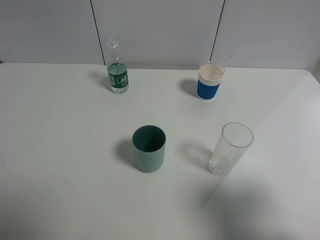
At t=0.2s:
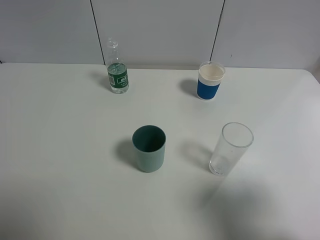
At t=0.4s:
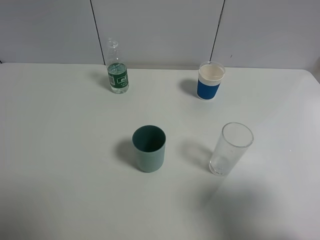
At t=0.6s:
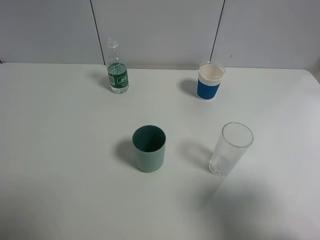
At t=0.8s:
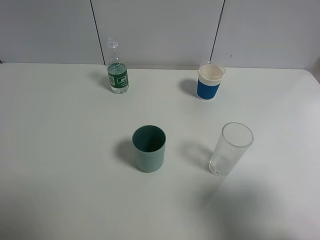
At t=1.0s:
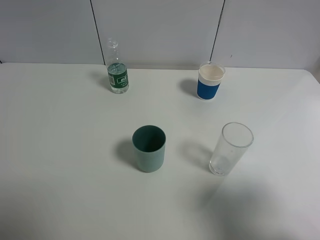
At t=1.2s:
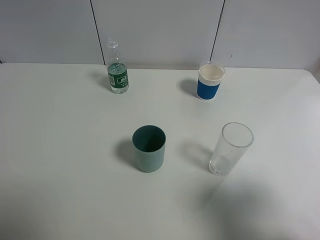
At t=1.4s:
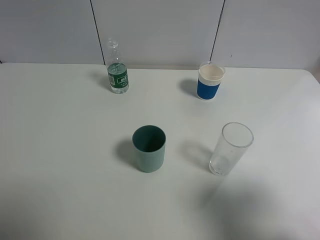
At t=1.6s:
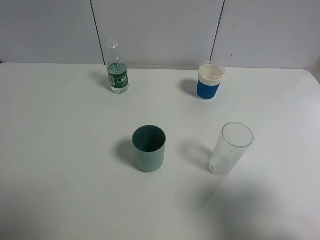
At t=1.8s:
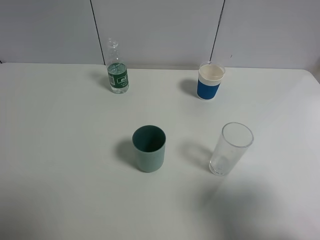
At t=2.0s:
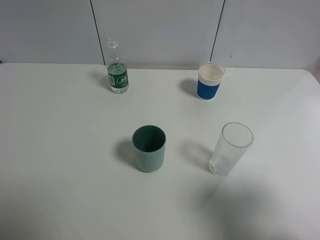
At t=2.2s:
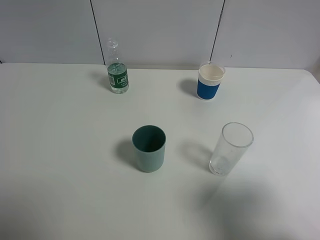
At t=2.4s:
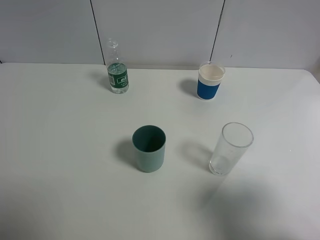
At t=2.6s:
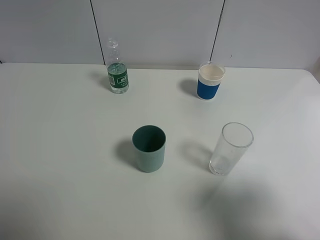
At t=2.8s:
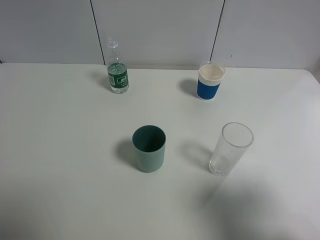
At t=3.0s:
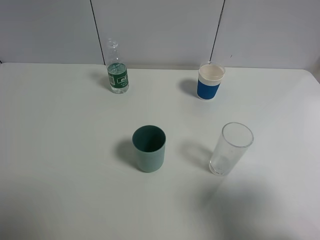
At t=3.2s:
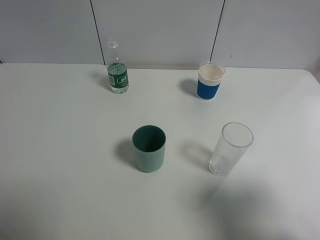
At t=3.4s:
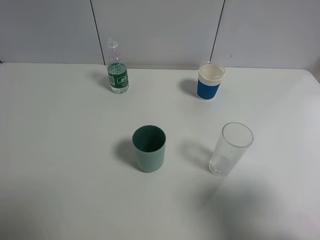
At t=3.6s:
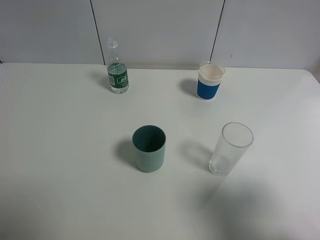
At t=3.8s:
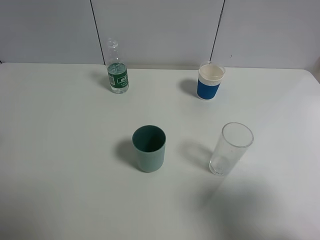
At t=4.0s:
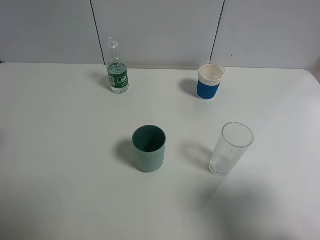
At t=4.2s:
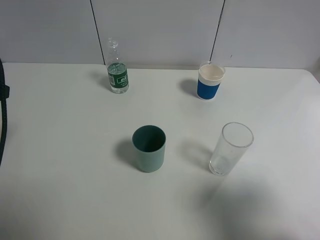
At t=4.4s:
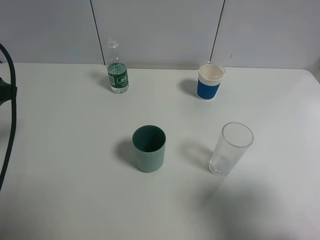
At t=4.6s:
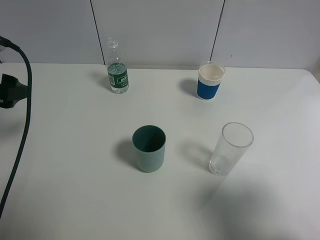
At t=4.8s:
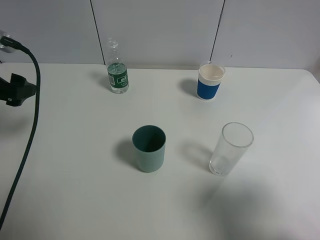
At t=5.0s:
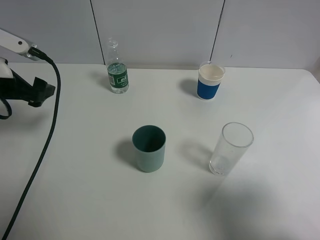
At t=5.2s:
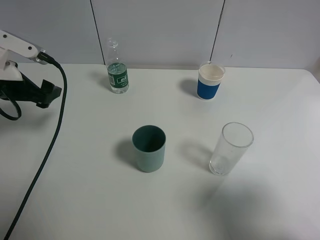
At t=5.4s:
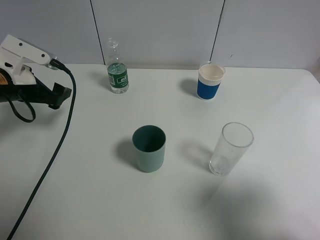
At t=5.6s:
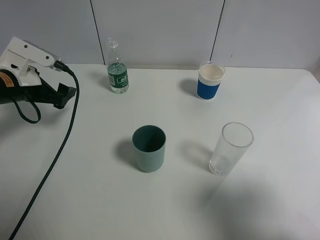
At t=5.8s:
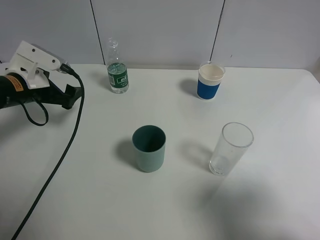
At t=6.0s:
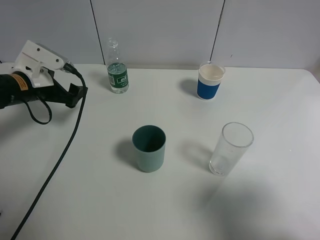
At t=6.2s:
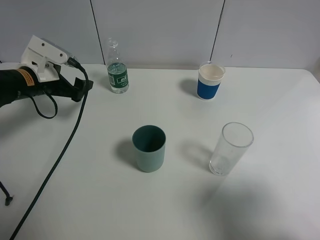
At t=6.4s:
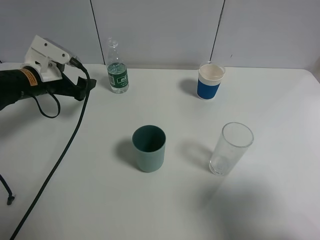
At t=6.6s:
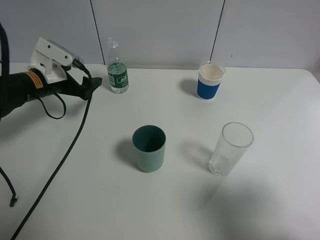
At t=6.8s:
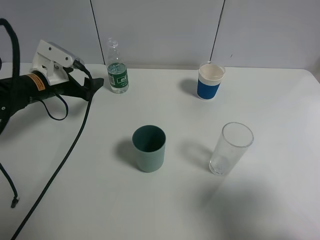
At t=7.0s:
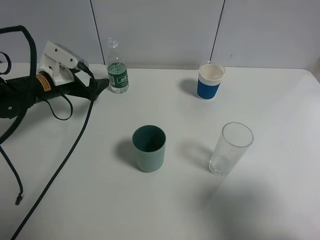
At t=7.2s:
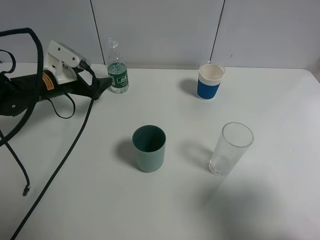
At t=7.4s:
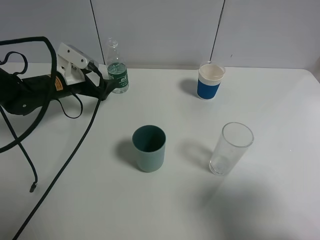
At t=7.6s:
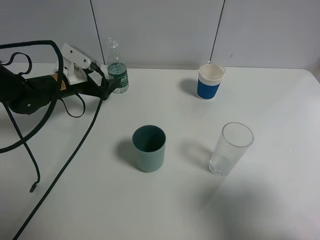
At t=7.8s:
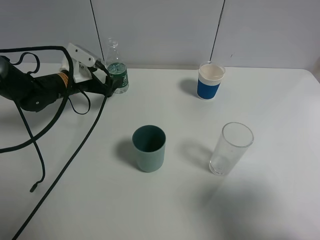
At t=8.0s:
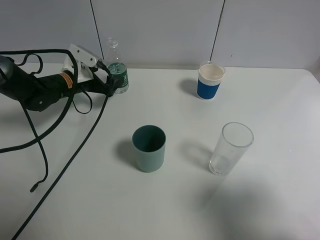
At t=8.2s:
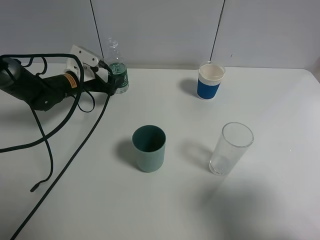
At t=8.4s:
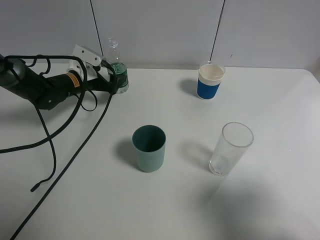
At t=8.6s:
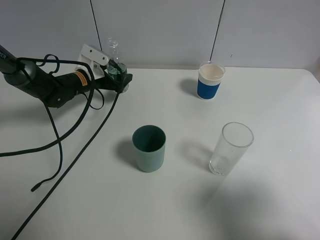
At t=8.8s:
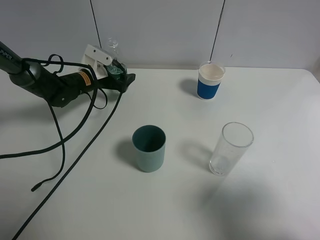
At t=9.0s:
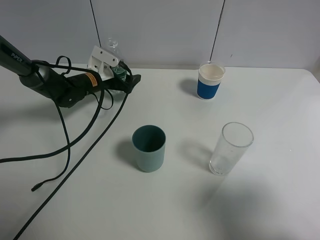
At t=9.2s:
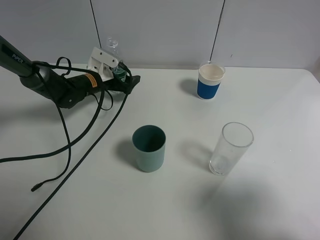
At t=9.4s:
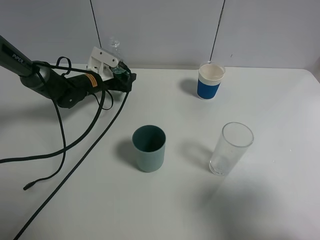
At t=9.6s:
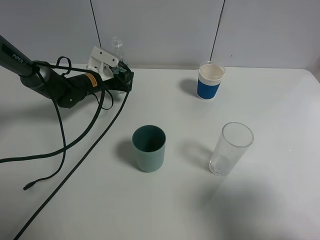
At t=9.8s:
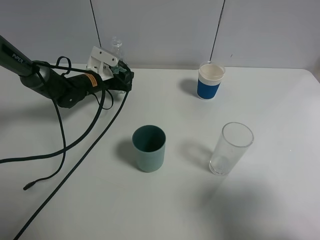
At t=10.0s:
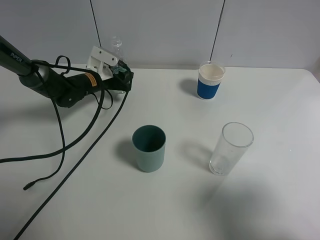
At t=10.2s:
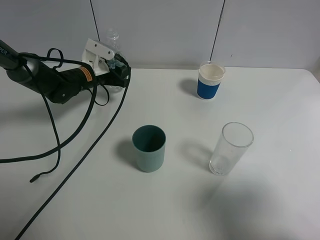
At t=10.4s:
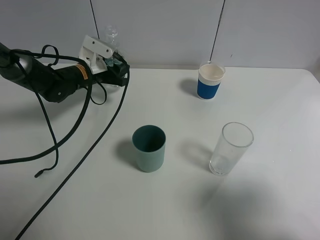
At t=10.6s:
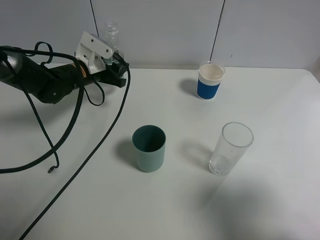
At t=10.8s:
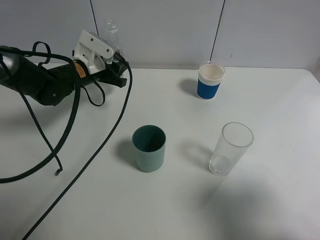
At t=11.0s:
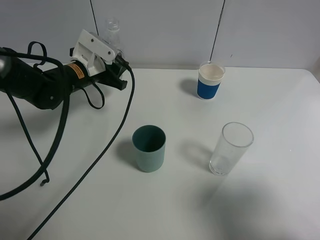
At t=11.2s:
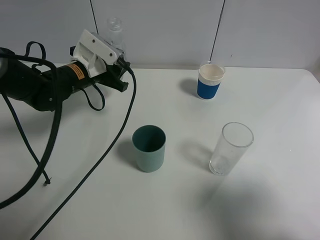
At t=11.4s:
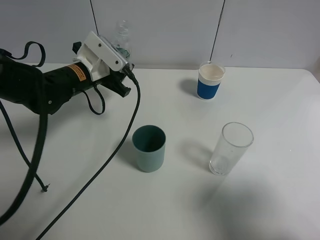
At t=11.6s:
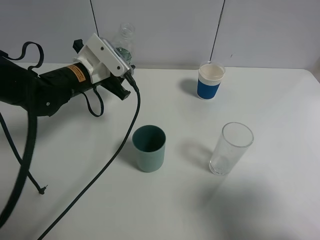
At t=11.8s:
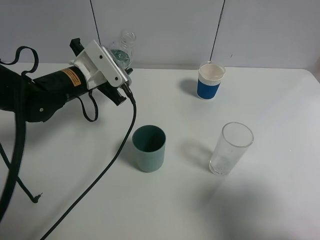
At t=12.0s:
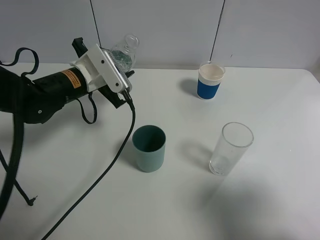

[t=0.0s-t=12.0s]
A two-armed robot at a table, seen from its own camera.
Task of the whole recording: use a gripper to hold the bottle of the drink and pour it into a random cup.
Step, t=0.0s to t=9.6s: Grasp the mineral water bottle with the left gripper.
t=0.0s to t=1.6s: Both grippers stay put.
t=3.0s to t=4.4s: The left gripper heads forward, covering approximately 15 cm, and opens.
t=4.4s to t=6.0s: The left gripper shifts some 15 cm forward and downward.
t=6.0s to t=7.6s: The left gripper travels forward by roughly 5 cm.
t=7.6s to t=9.0s: The left gripper is displaced forward by approximately 5 cm.
t=9.0s to t=10.4s: The left gripper closes its fingers.
t=10.4s to t=12.0s: The left gripper moves backward and upward, about 10 cm.

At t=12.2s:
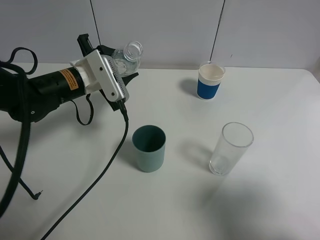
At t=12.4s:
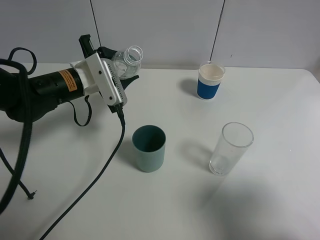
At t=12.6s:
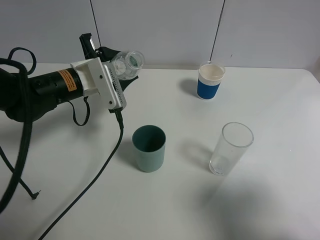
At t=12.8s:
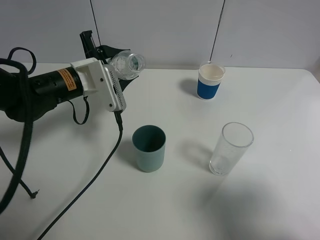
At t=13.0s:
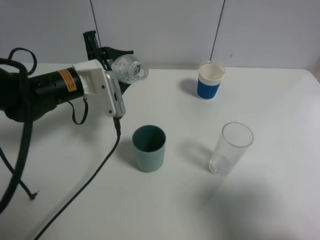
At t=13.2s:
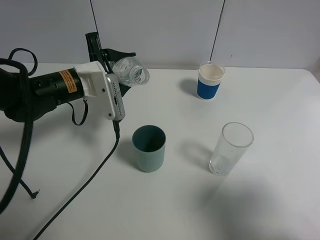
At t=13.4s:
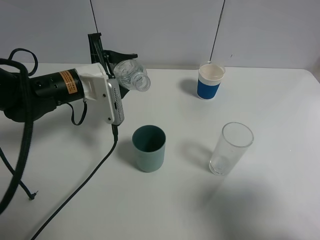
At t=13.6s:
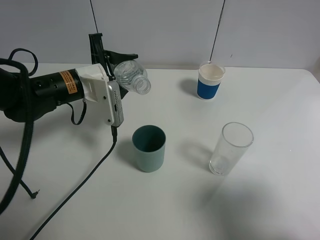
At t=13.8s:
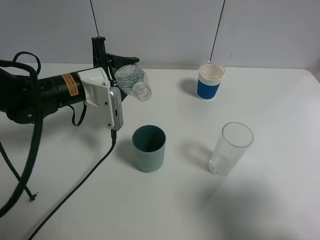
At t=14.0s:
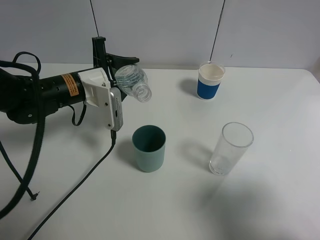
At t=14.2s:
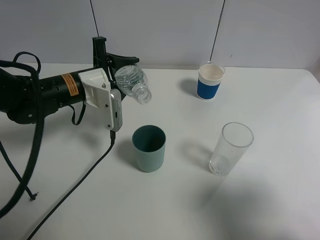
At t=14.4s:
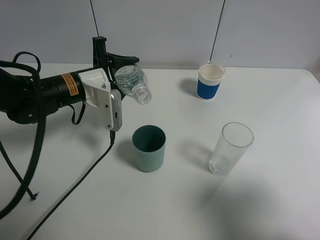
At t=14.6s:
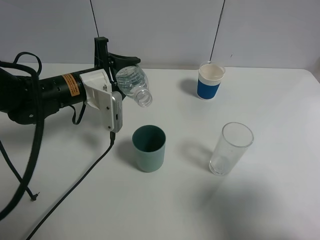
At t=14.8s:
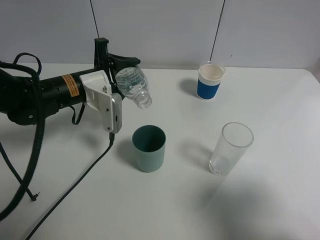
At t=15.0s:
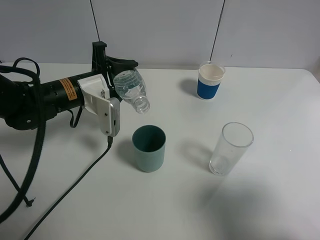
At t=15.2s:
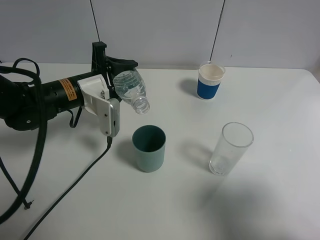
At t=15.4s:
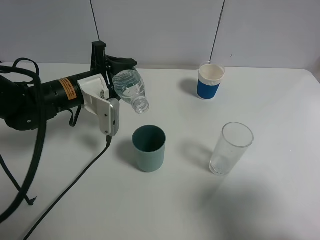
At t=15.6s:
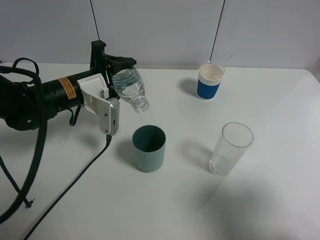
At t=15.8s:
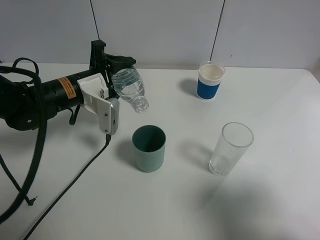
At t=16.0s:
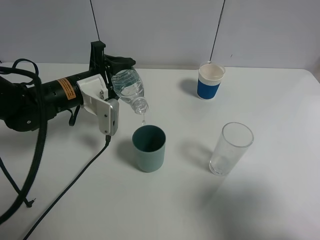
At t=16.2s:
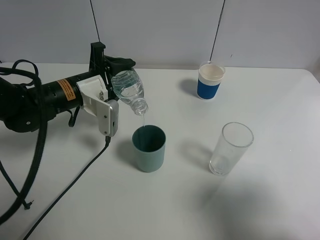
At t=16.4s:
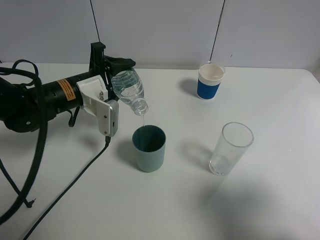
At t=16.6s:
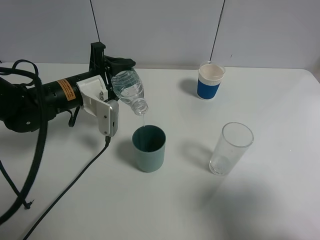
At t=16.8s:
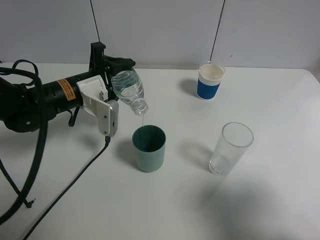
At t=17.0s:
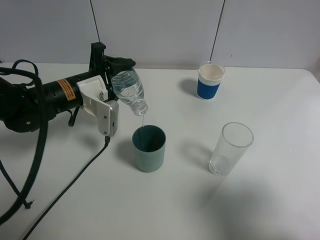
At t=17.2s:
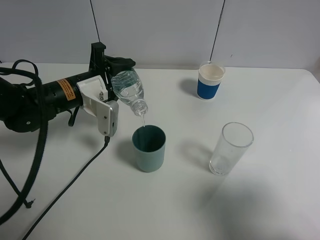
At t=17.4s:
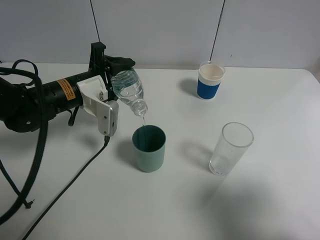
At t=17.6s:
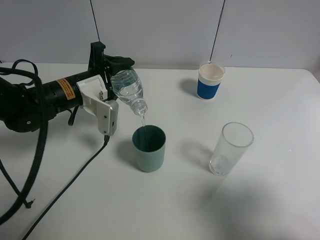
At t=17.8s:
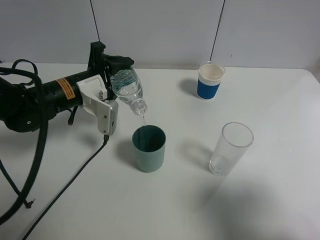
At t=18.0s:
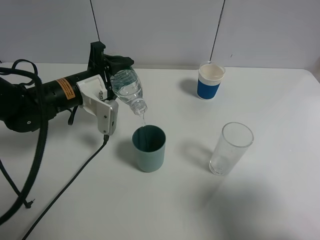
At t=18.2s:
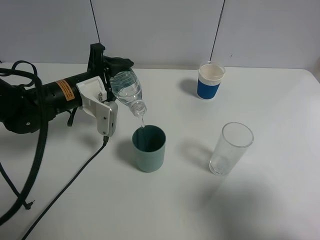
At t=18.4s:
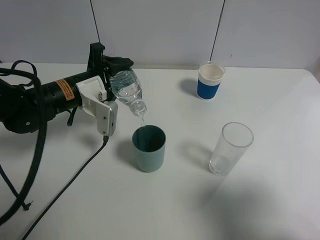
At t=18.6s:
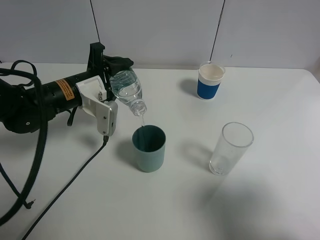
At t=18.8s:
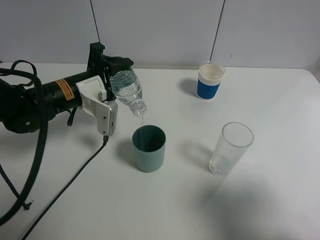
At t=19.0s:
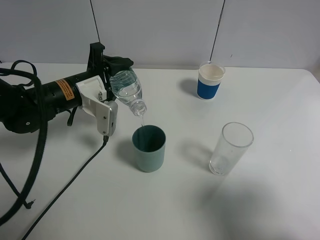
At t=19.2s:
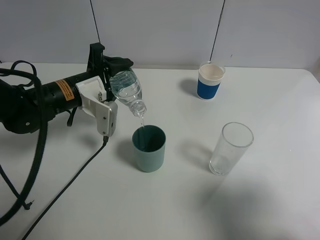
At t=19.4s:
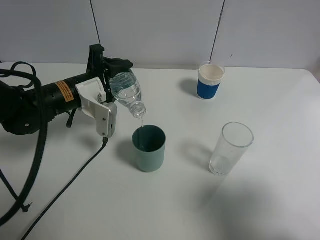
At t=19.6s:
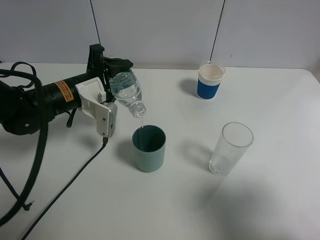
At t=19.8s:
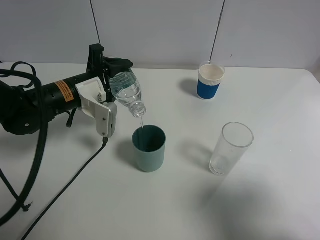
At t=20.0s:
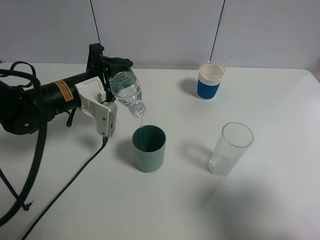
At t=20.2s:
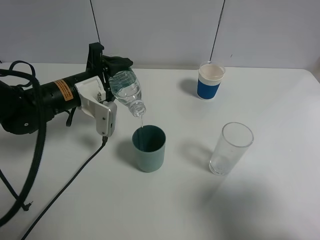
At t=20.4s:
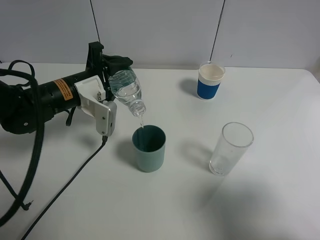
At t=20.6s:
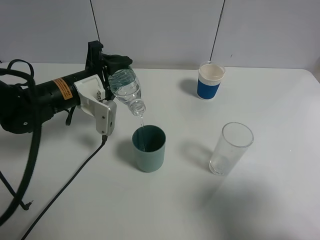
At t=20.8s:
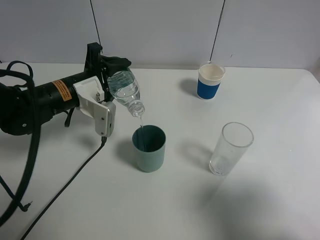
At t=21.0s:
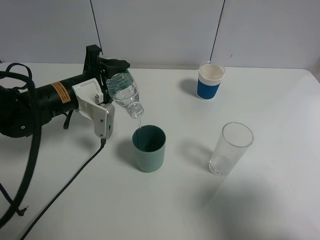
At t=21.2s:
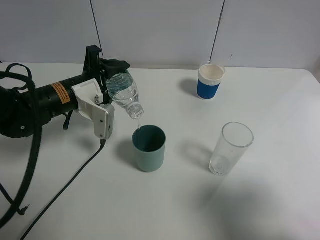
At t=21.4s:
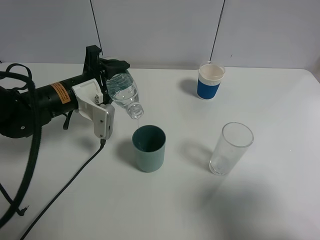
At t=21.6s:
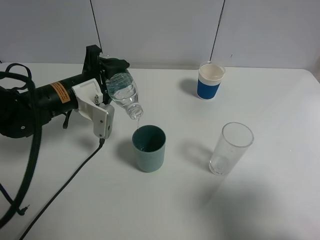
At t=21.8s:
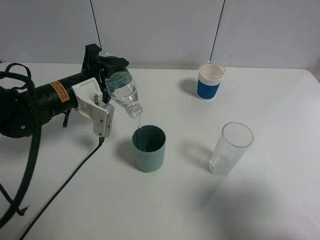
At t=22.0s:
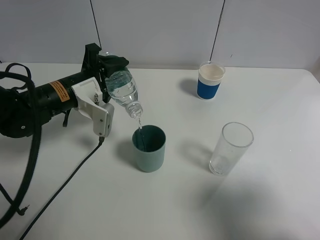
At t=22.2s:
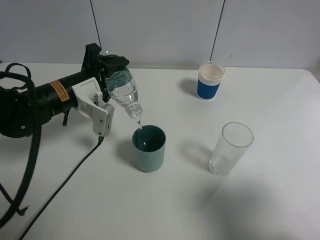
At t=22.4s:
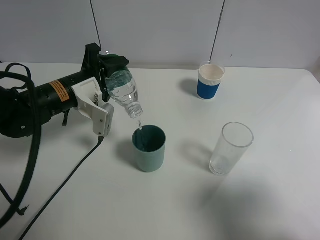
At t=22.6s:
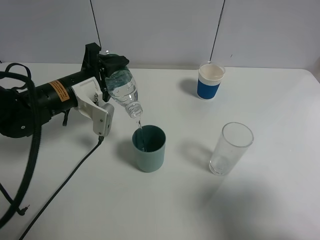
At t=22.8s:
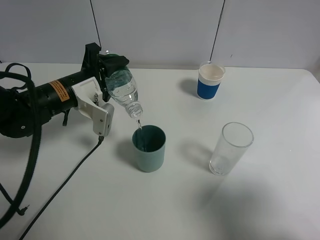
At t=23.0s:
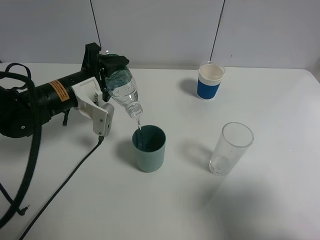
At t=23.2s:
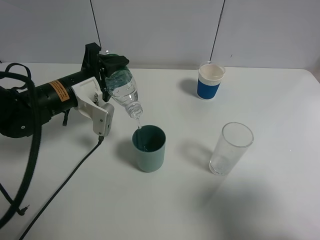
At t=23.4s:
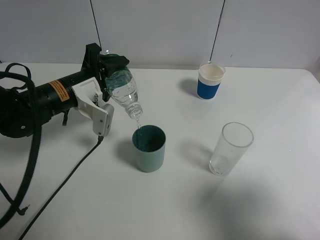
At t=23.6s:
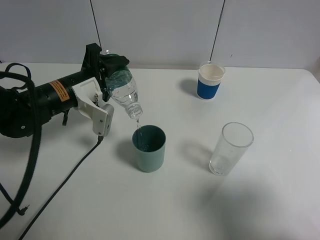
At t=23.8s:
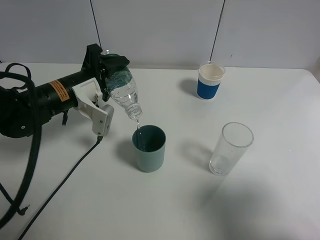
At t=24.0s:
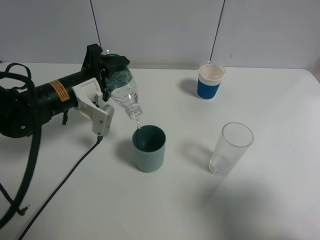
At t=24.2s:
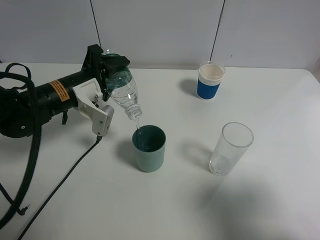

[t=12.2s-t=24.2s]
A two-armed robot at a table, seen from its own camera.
Task of the whole recording: use a gripper to hold the bottle of the drink and pour it into a random cup.
t=13.8s to t=15.2s: The grippers stay close to where they were, moving slightly.
t=15.2s to t=16.6s: Neither gripper changes place.
t=16.6s to t=19.8s: The two grippers keep their place.
t=19.8s to t=21.2s: Neither gripper changes place.
t=21.2s to t=22.6s: There are only small adjustments of the grippers.
t=22.6s to t=24.2s: Both grippers stay put.
